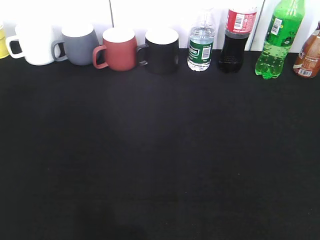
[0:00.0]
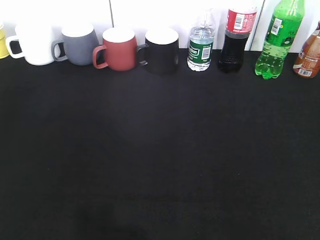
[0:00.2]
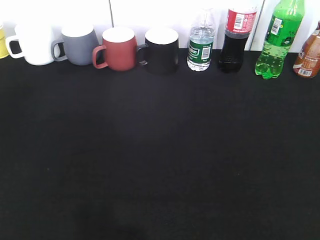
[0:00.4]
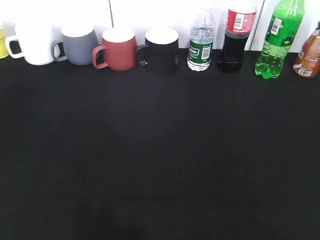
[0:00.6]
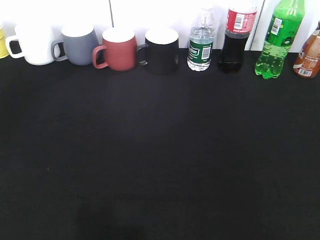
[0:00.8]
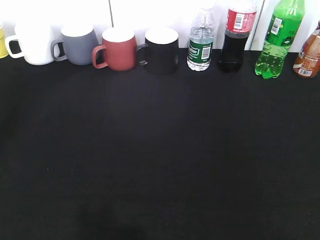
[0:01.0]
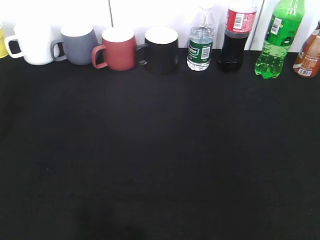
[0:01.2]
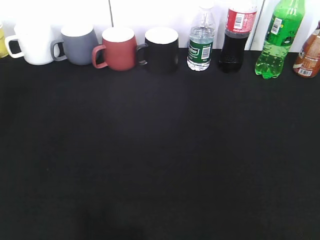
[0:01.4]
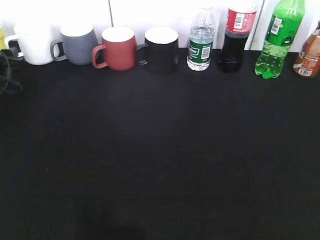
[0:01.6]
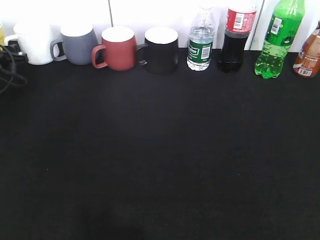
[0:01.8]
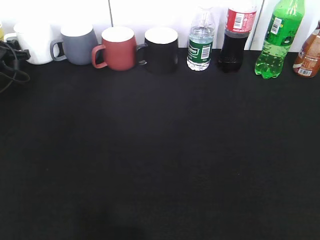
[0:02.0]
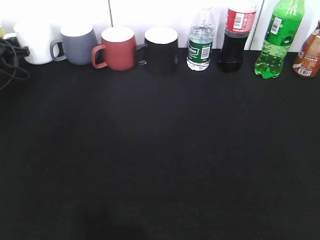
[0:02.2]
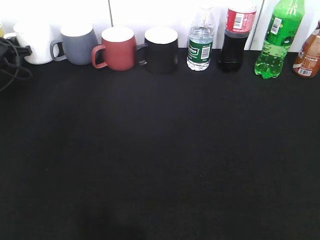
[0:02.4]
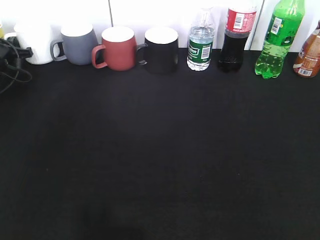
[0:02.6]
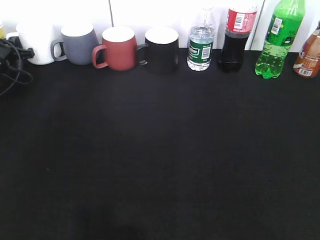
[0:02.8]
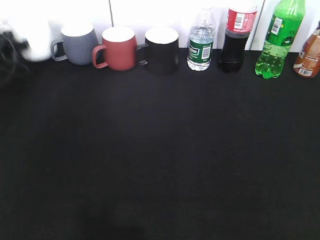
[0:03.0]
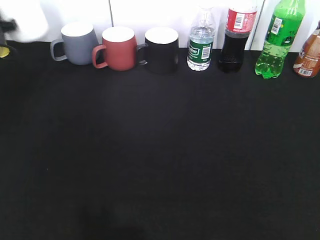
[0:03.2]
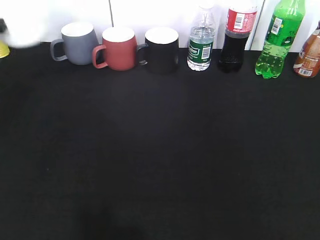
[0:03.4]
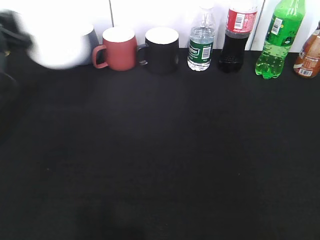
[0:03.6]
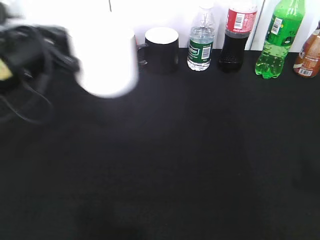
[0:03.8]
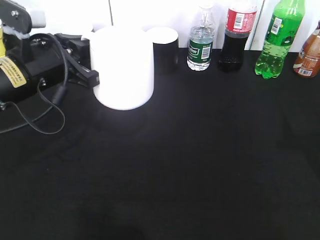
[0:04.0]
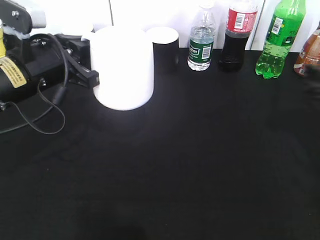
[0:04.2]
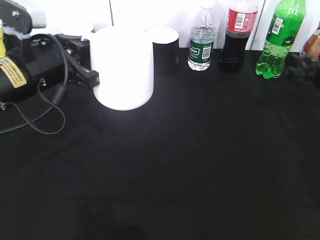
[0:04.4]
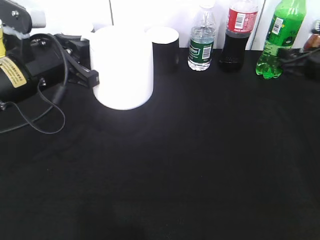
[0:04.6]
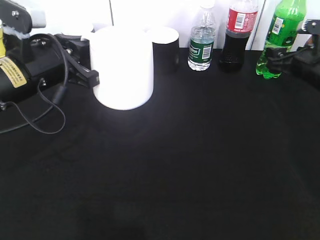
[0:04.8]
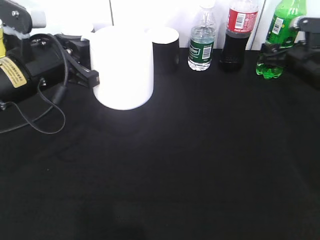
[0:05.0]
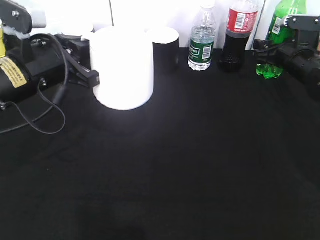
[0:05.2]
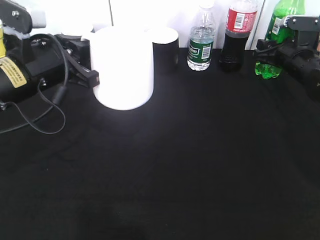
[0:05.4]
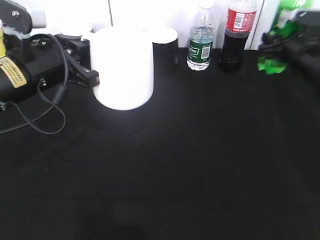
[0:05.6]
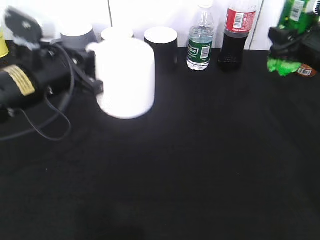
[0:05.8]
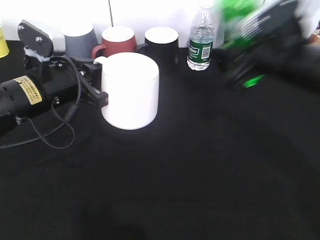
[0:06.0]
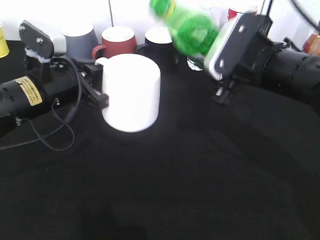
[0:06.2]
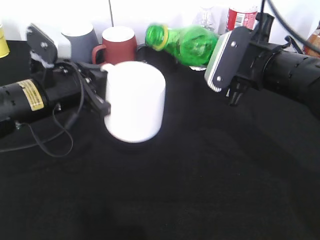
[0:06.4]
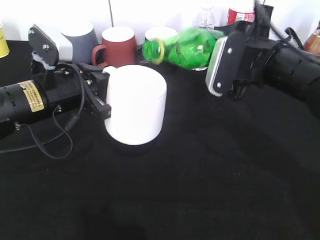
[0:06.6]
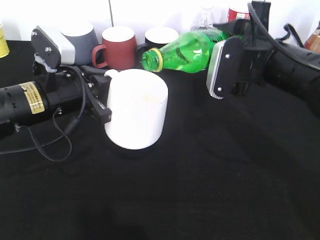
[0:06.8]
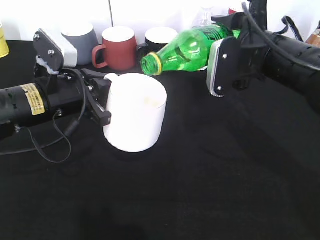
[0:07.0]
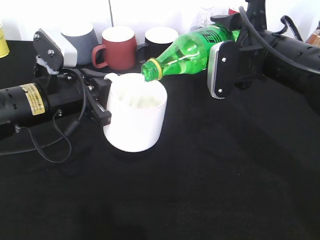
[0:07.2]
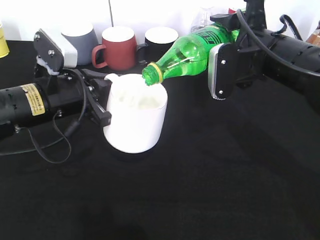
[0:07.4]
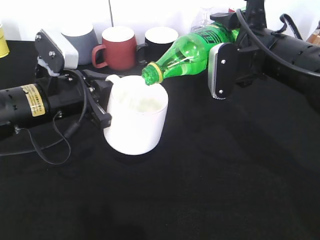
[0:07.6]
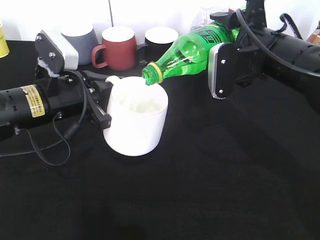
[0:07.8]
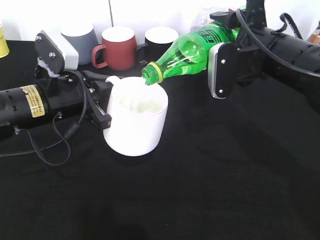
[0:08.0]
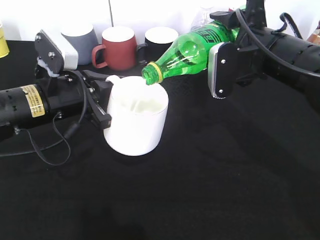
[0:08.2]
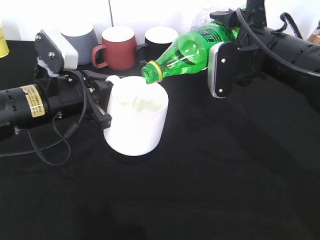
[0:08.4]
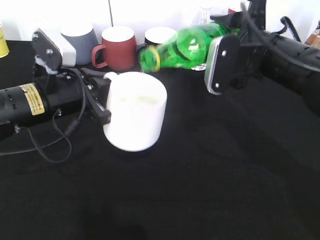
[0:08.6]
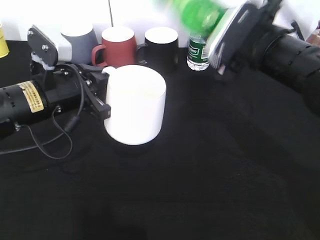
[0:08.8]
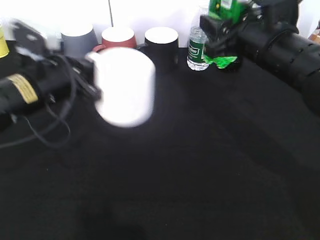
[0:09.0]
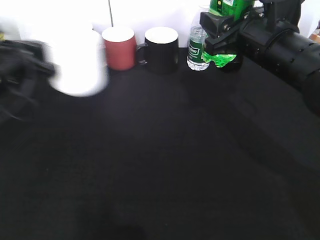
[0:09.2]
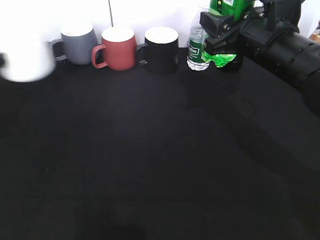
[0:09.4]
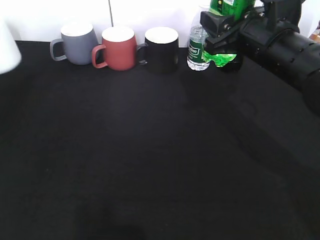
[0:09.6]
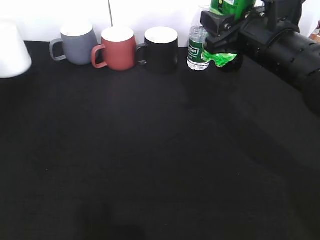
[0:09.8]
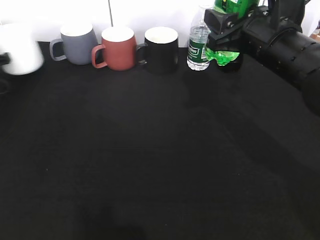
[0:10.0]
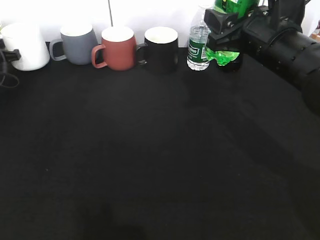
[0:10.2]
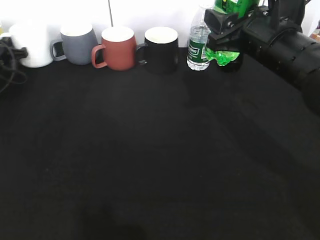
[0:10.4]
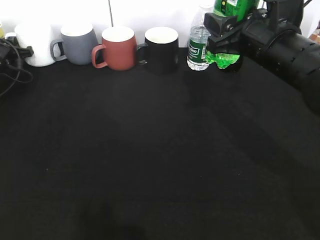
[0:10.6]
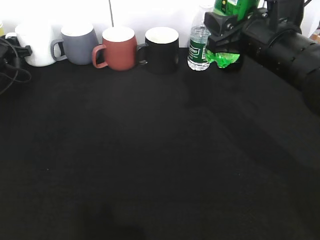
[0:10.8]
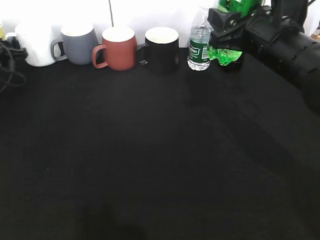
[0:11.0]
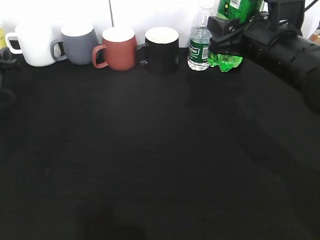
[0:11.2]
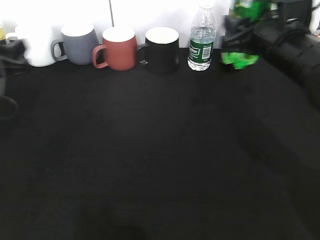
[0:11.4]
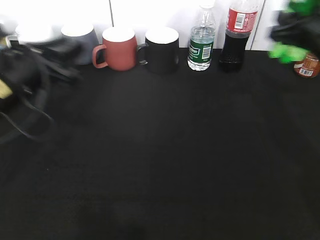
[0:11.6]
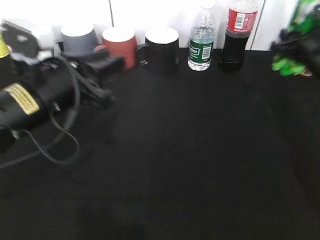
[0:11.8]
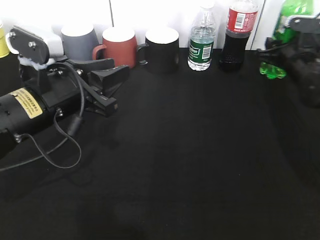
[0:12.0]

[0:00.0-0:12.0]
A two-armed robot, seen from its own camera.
Step, 0:03.0 to 0:04.0: Lift the white cup with left gripper.
Step, 0:04.2 to 0:05.4: Grasp the bottle with sprite with right gripper.
Step, 0:05.6 to 0:08.6: Pour the sprite from bottle to cup with right gripper.
0:00.0 to 0:01.6: The left gripper goes roughly 40 cm forward.
0:01.6 to 0:03.0: The left gripper moves forward, some 5 cm, and closes its fingers.
0:03.0 to 0:04.4: The right gripper heads forward, covering approximately 35 cm; the left gripper moves backward, to the right and upward, approximately 30 cm.
0:04.4 to 0:06.0: The right gripper travels to the left and upward by roughly 15 cm, travels forward and back again, about 10 cm each way, and closes.
0:09.0 to 0:10.4: The left gripper goes approximately 30 cm forward, to the left and downward.
0:10.4 to 0:12.0: The right gripper is displaced forward, to the right and downward by approximately 20 cm. The left gripper goes approximately 35 cm backward and to the right, and opens its fingers.

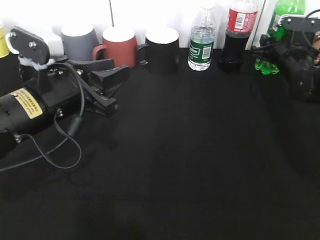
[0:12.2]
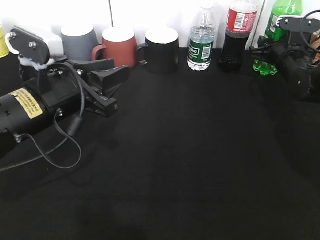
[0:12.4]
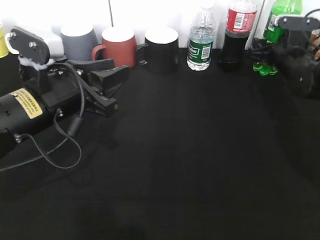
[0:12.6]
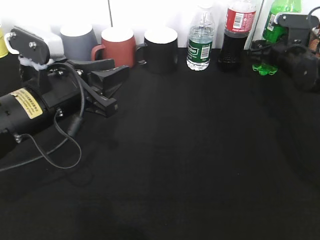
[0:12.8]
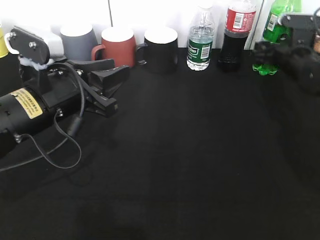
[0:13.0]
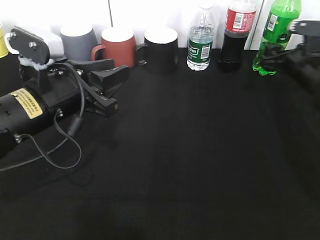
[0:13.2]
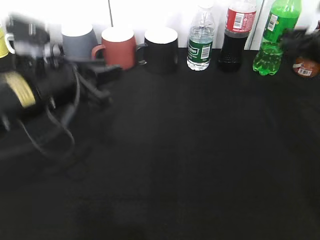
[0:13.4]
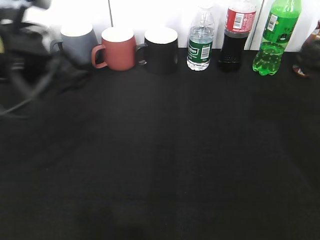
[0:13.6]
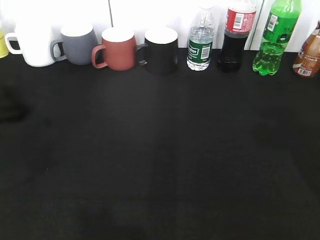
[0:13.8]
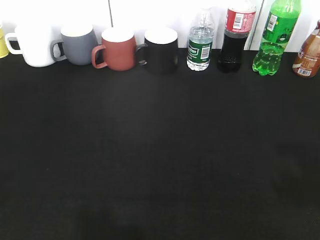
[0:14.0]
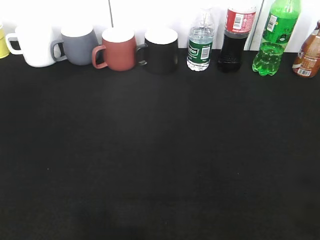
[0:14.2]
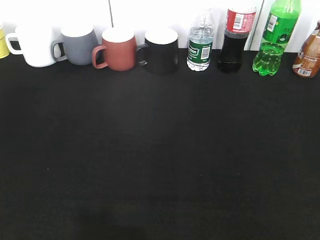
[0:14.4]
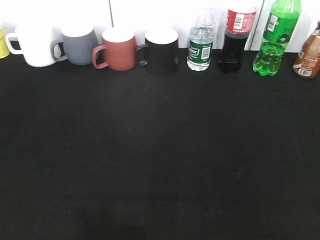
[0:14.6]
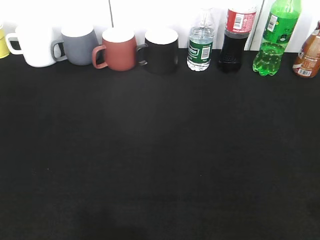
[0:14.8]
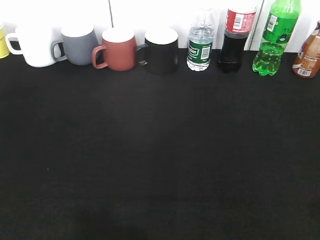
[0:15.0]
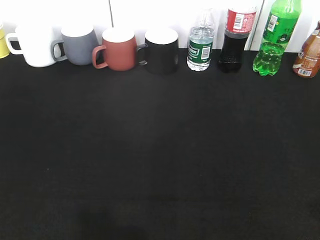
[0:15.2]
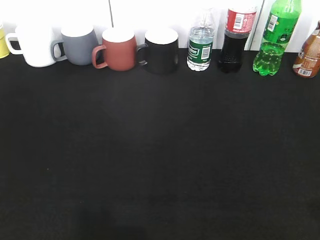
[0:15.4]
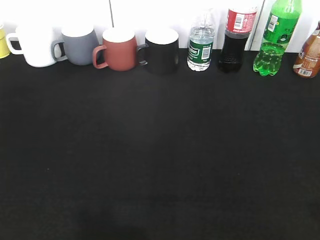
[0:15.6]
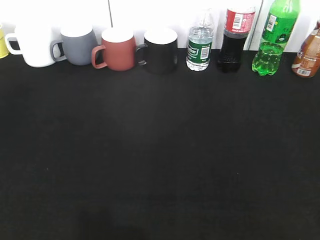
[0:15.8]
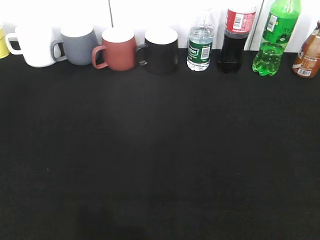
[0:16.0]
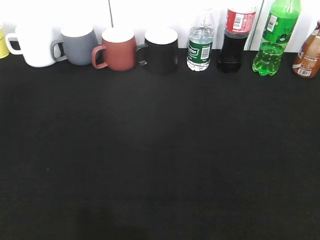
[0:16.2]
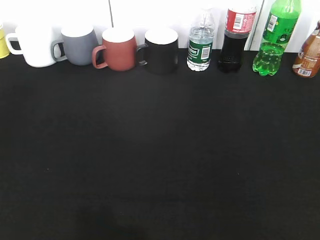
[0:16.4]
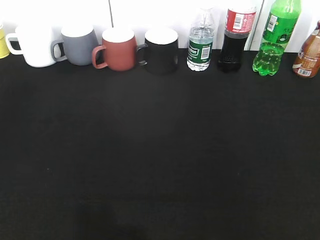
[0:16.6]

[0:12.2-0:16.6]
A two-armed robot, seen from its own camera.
0:12.2 to 0:13.6: The left gripper is displaced upward by some 10 cm, while the right gripper shifts about 20 cm backward and upward, and opens its fingers.
0:13.6 to 0:15.2: The right gripper heads backward, covering about 25 cm. The left gripper is displaced backward and to the left by approximately 25 cm.

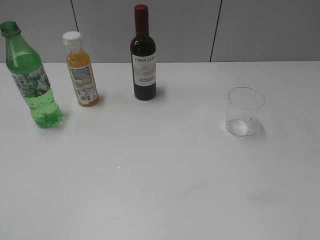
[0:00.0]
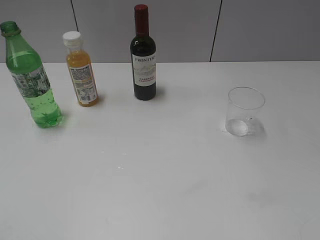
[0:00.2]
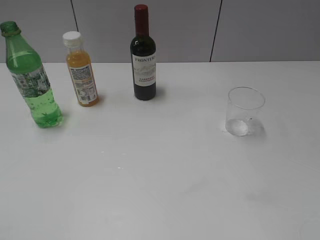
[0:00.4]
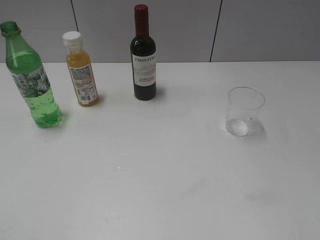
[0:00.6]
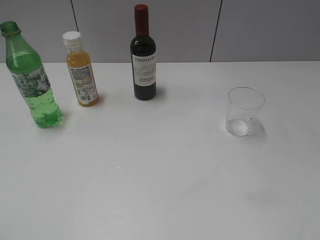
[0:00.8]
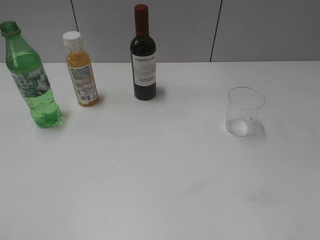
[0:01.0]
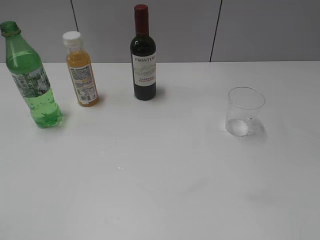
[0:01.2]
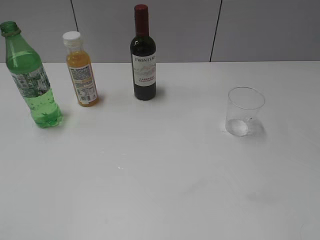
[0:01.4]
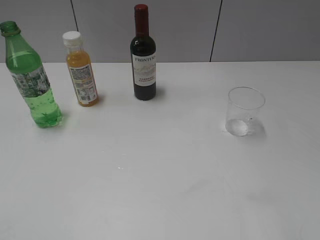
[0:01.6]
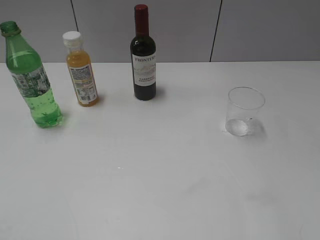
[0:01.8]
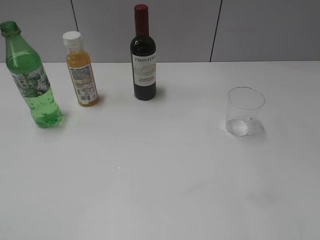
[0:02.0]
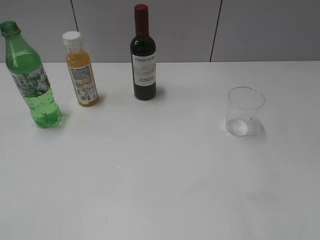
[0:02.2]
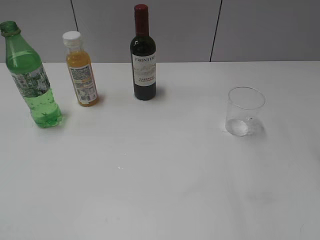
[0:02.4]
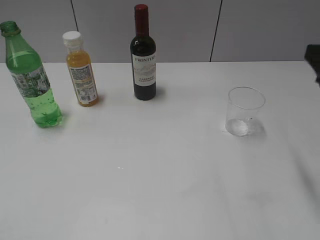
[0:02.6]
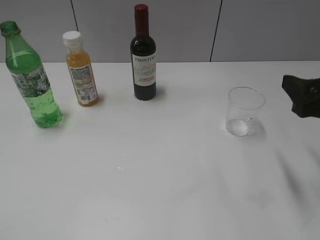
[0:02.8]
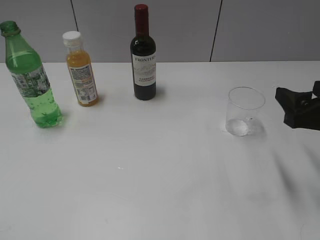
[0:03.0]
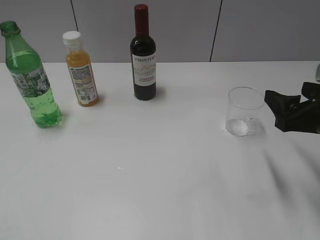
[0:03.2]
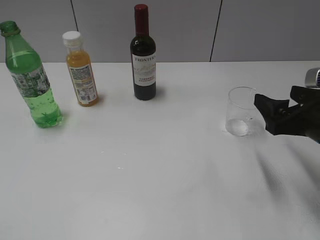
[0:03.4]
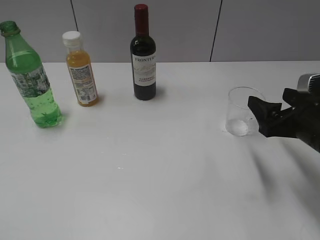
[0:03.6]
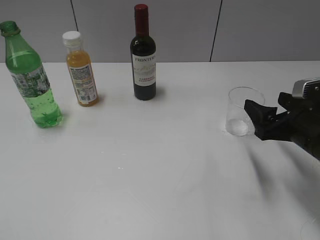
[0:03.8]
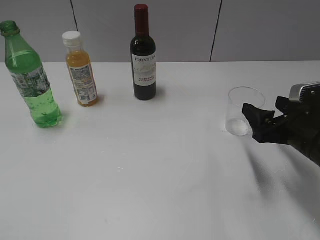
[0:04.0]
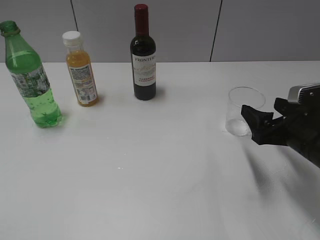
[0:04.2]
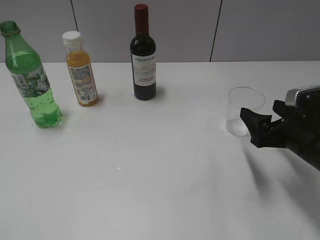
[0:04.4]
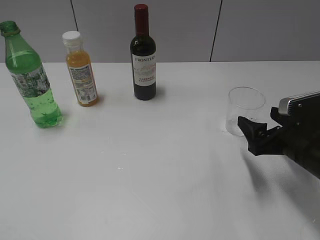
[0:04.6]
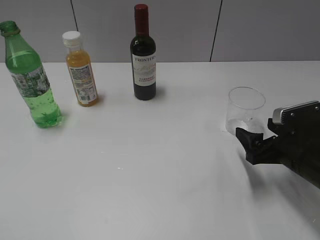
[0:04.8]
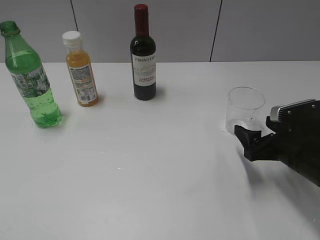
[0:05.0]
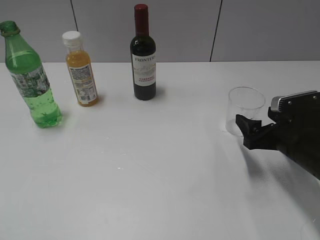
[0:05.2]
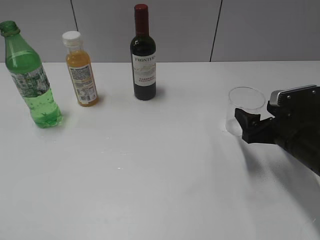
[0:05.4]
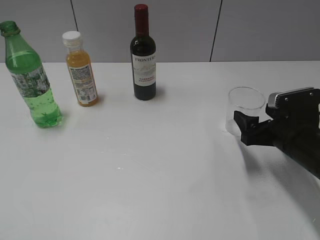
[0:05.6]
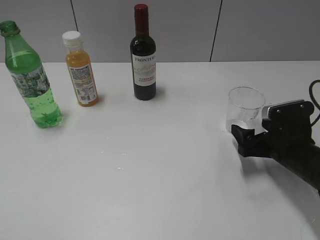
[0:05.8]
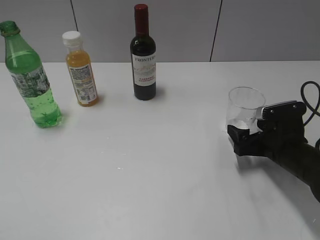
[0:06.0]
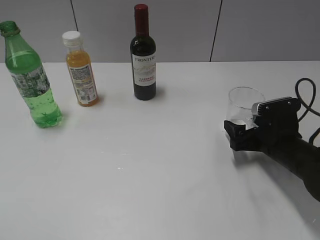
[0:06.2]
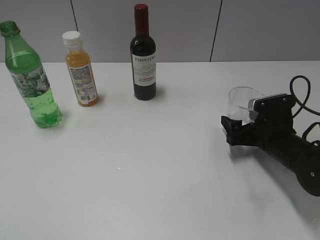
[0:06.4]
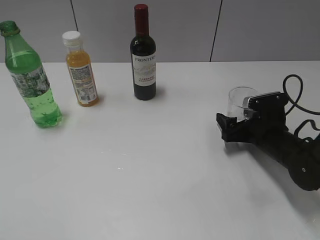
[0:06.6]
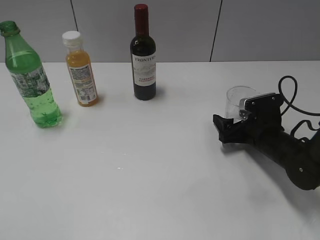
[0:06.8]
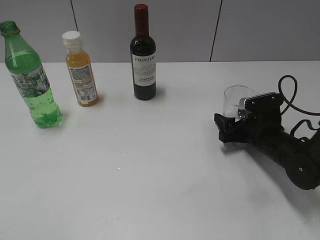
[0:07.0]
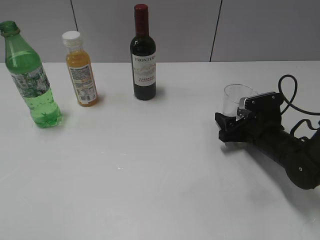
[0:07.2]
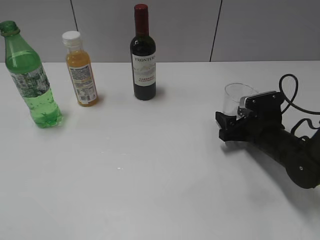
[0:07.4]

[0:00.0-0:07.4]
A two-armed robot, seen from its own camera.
Step, 0:01.0 to 0:07.2: Grasp the transparent cup with right gripper.
0:01.4 to 0:03.0: The right gripper goes about 20 cm forward and downward.
0:03.0 to 0:04.4: The right gripper travels downward by approximately 5 cm, and opens.
0:04.4 to 0:06.0: The right gripper travels downward by approximately 5 cm.
0:06.0 to 0:07.4: The right gripper changes place by roughly 5 cm, and closes its fingers.
